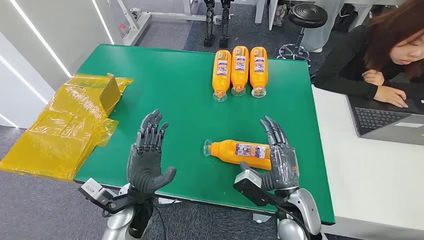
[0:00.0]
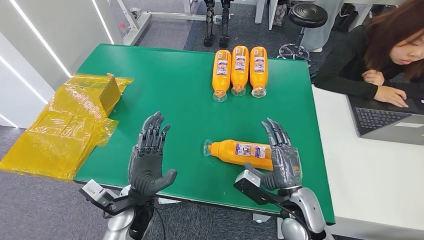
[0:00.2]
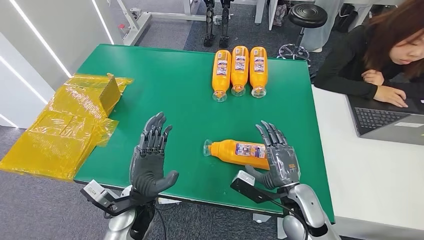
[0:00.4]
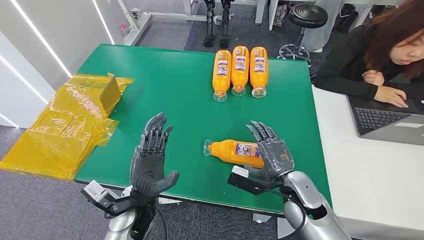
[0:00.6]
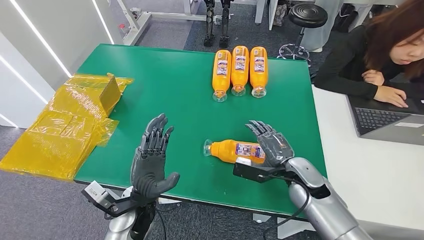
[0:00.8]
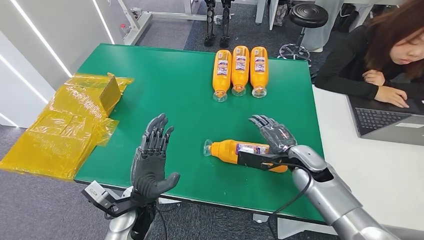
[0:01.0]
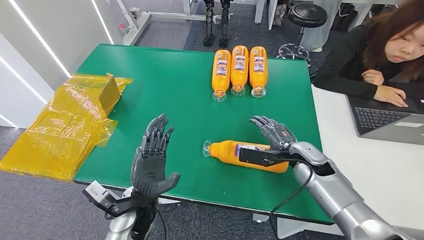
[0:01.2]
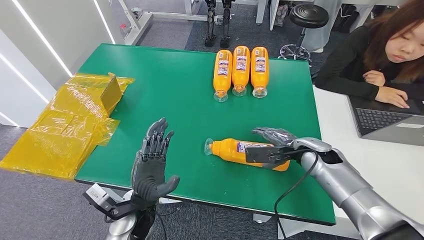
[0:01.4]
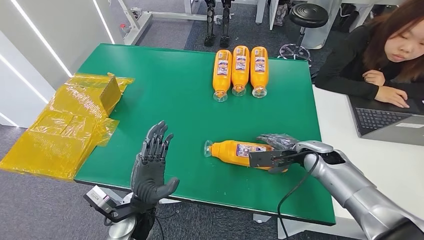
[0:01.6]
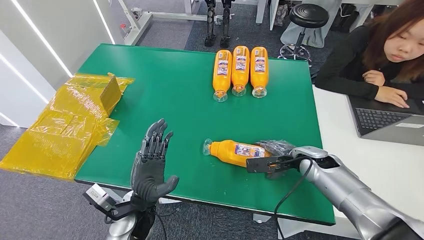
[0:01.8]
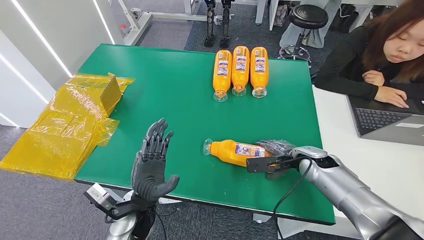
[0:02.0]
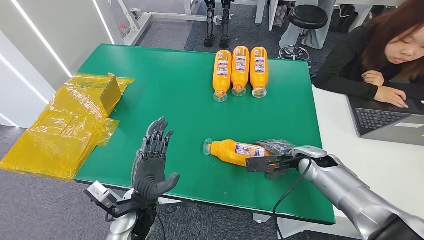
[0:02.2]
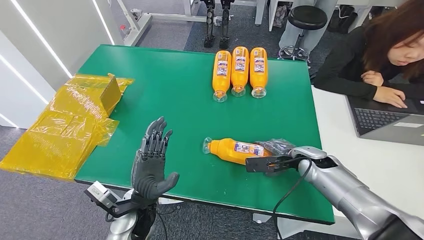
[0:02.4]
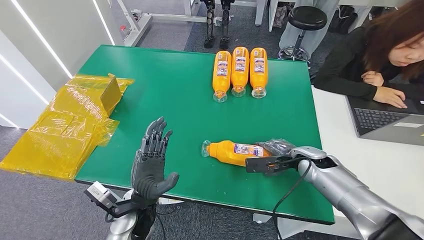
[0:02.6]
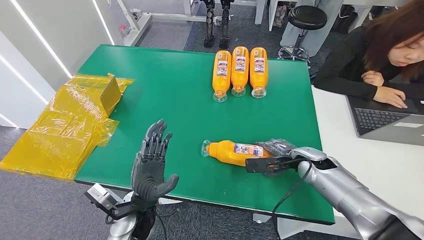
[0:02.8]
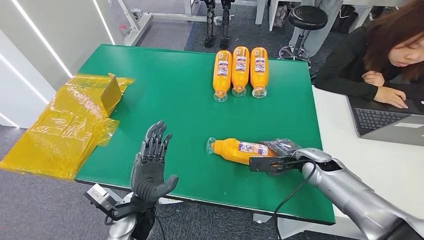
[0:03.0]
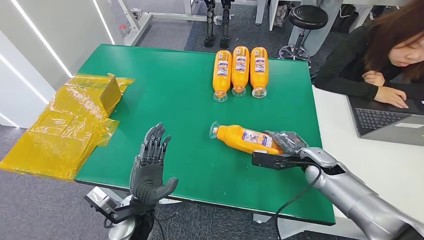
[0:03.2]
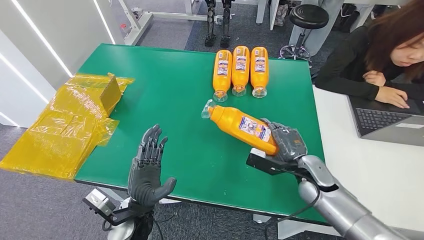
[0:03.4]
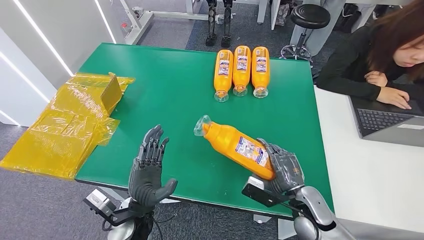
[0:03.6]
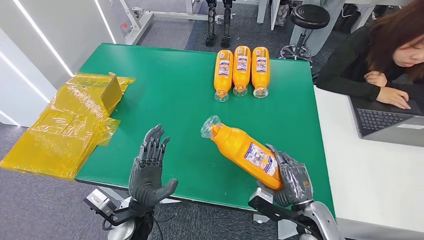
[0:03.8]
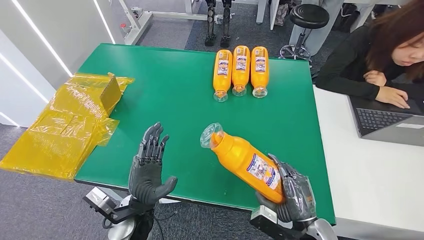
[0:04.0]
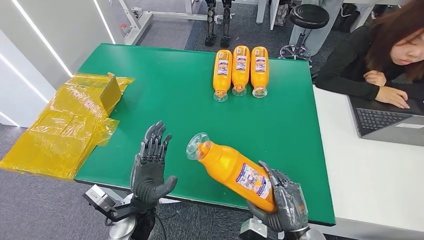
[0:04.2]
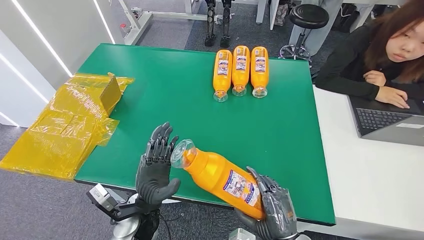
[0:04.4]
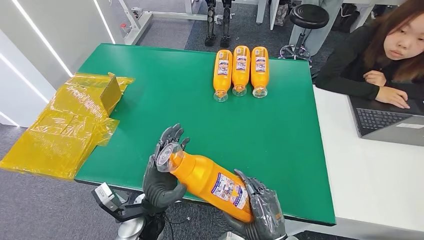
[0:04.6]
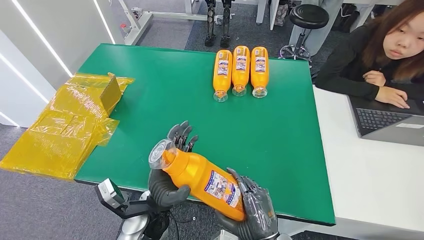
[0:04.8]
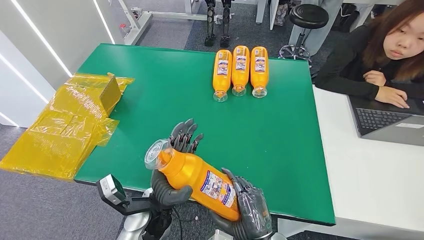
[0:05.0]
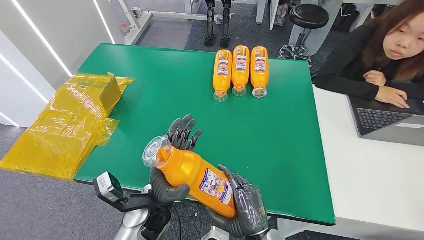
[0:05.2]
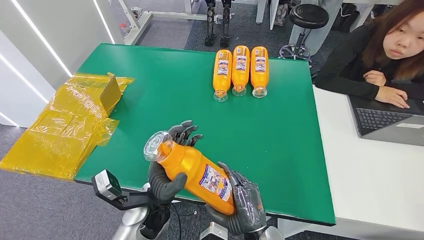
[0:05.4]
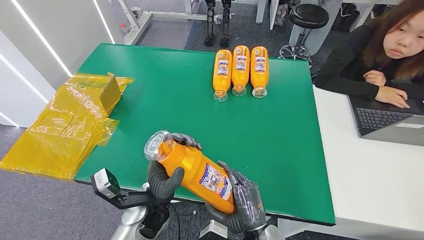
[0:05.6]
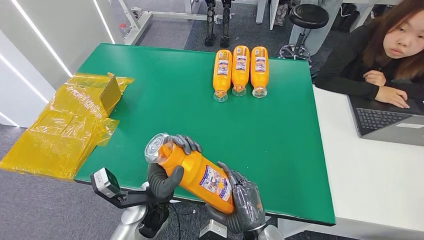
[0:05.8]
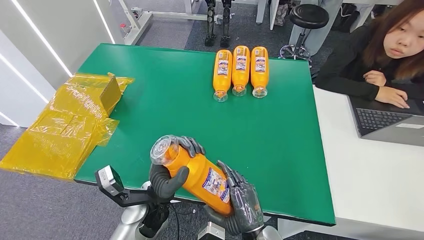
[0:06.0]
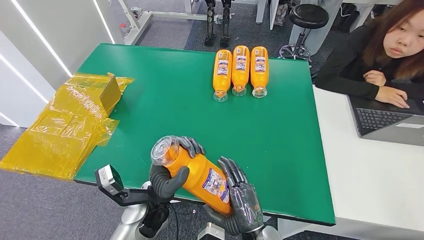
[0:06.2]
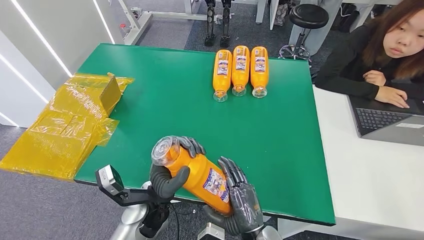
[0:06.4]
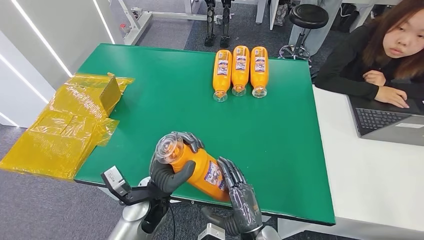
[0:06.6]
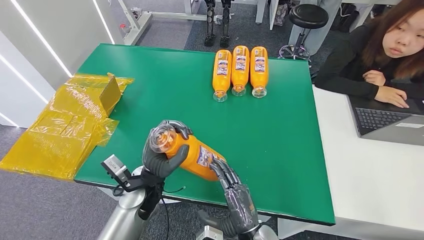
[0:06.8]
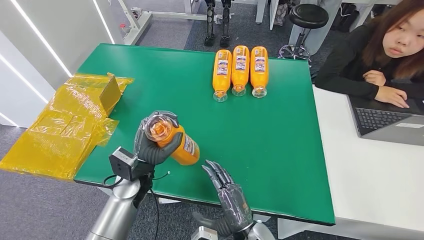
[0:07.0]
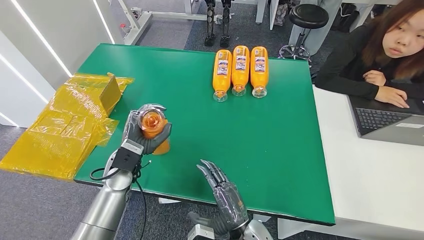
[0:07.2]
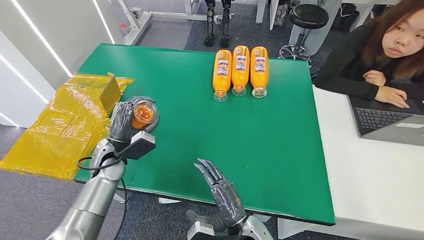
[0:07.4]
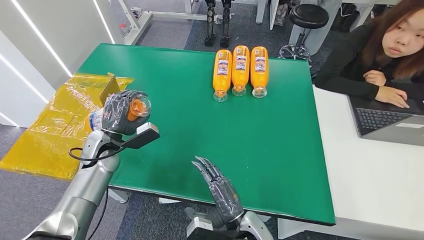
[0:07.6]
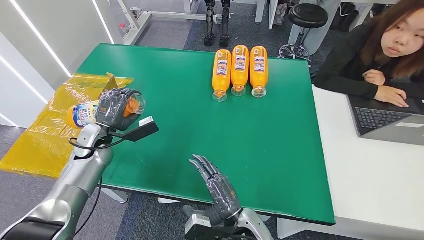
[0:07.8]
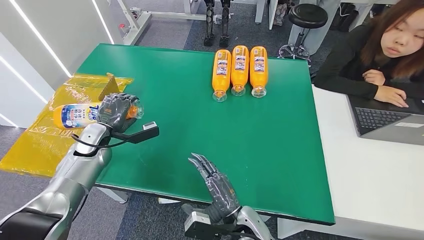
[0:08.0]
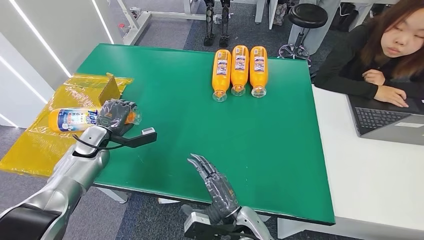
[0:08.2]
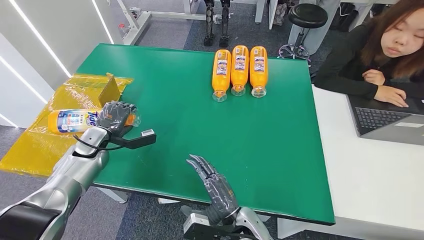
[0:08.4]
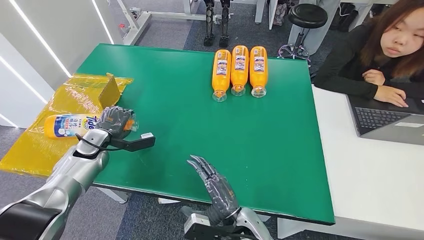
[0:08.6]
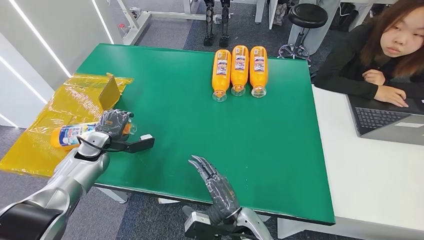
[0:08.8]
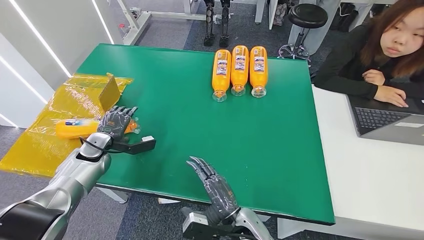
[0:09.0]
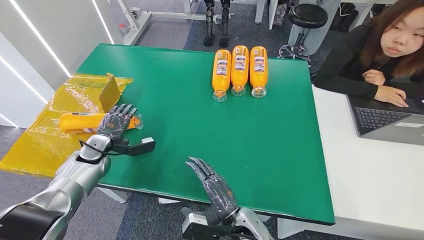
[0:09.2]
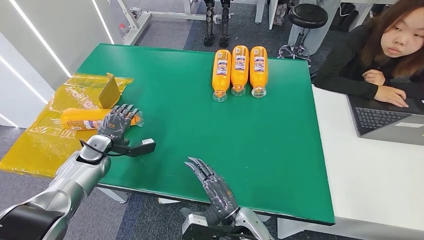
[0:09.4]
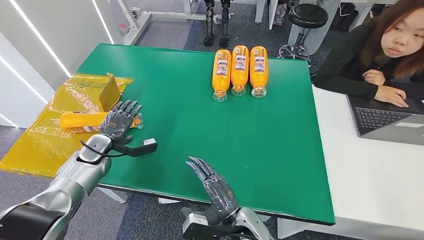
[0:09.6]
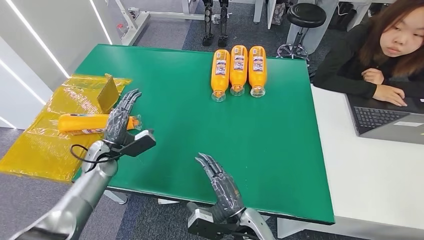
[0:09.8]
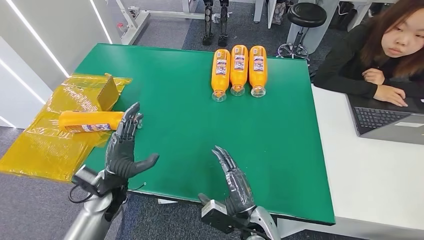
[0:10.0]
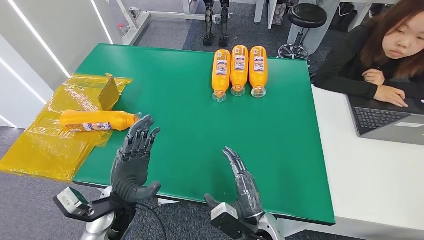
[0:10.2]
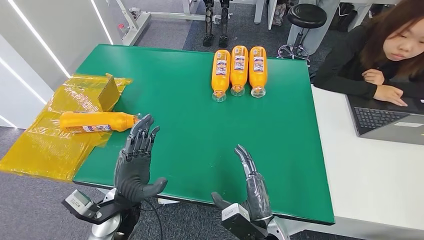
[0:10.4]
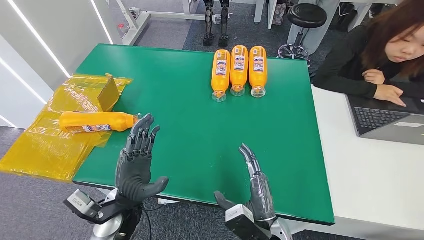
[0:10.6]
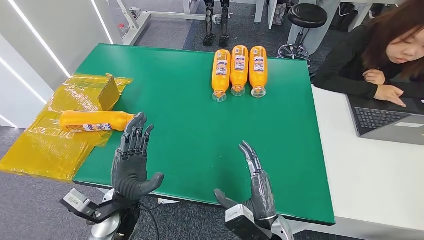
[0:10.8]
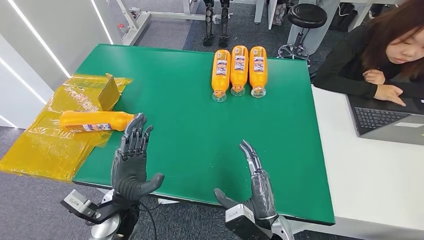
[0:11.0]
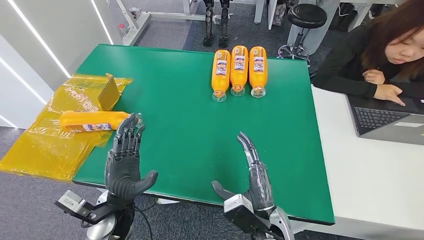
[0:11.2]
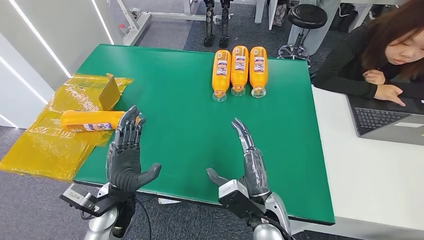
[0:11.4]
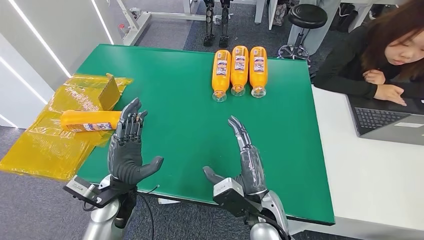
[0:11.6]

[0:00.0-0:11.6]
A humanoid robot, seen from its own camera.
Step, 0:00.0 to 0:03.2: Pick up the bottle from the table.
Step, 0:03.4 to 0:11.6: Turn the bottle to the front side.
0:01.4 to 0:02.8: The hands make only small movements.
0:04.4 to 0:05.8: The right hand heads to the left, covering approximately 10 cm.
0:05.8 to 0:07.2: The left hand travels to the left and forward by some 15 cm.
0:07.2 to 0:08.8: The left hand shifts about 15 cm to the left.
0:08.8 to 0:10.2: The left hand goes about 25 cm to the right and backward.
0:10.2 to 0:11.6: The right hand goes approximately 5 cm upward.

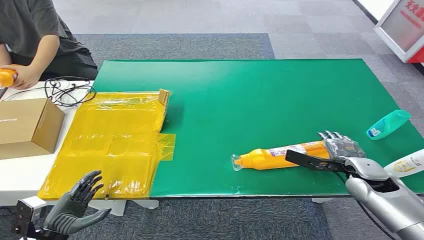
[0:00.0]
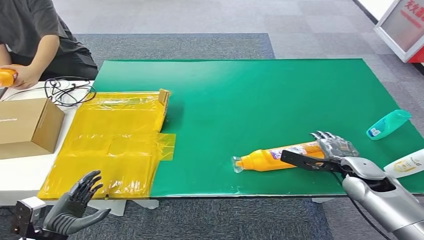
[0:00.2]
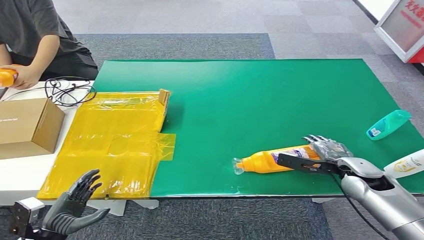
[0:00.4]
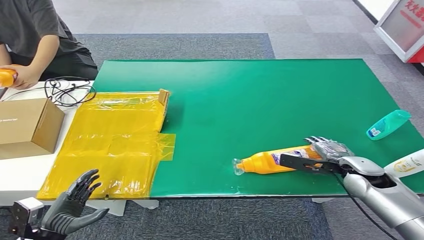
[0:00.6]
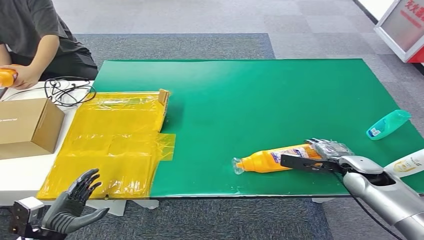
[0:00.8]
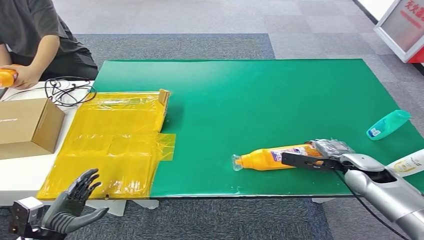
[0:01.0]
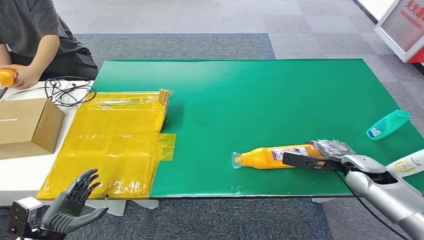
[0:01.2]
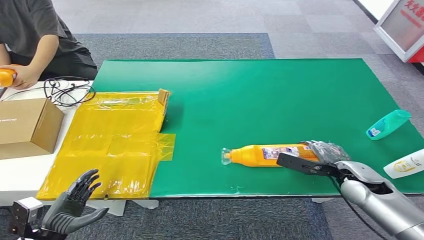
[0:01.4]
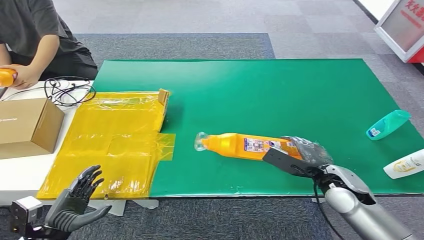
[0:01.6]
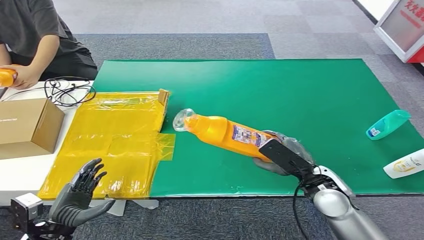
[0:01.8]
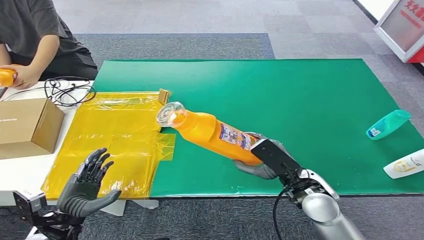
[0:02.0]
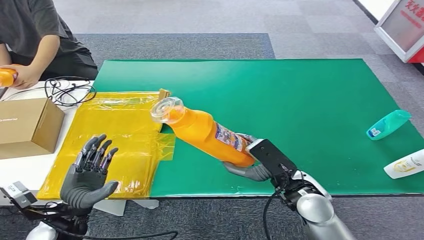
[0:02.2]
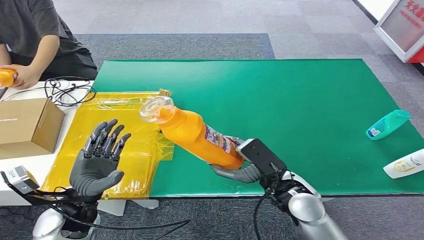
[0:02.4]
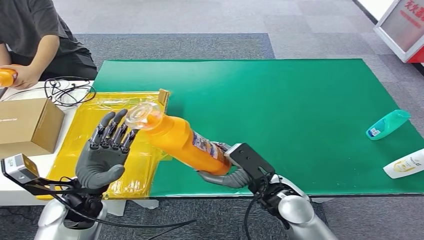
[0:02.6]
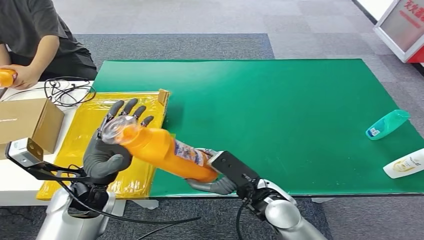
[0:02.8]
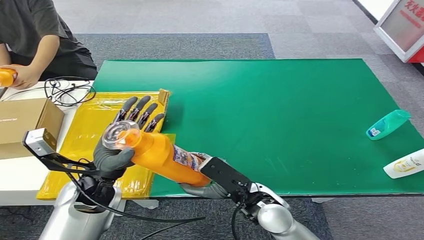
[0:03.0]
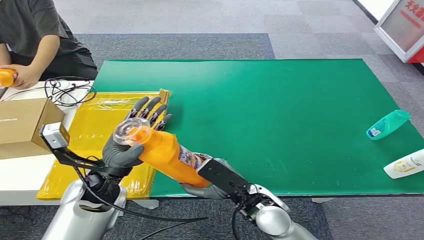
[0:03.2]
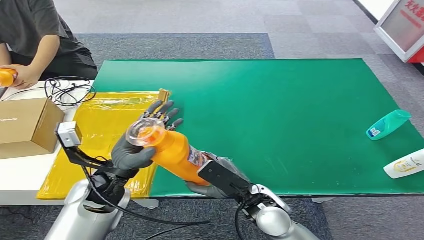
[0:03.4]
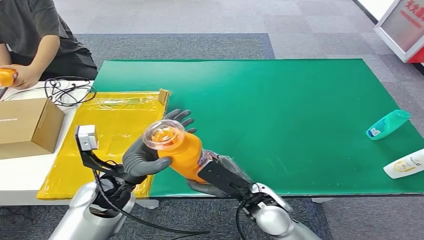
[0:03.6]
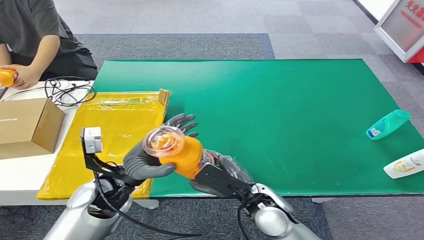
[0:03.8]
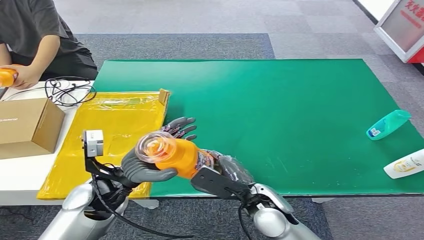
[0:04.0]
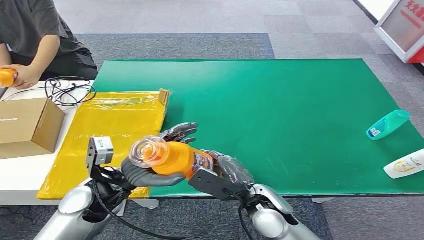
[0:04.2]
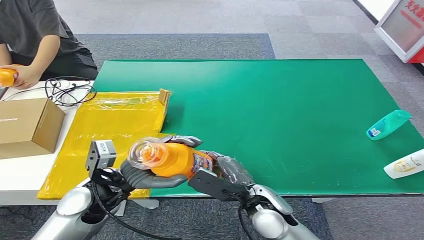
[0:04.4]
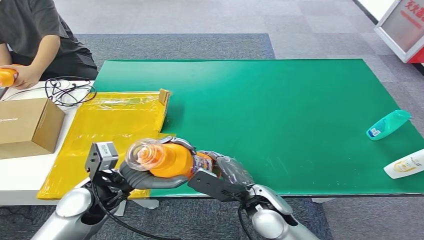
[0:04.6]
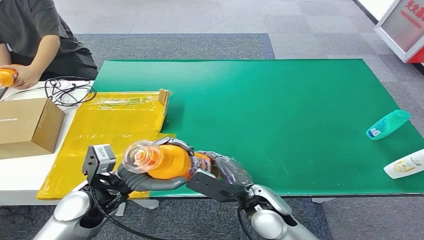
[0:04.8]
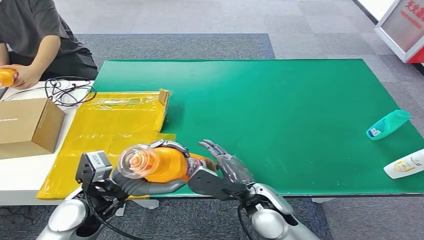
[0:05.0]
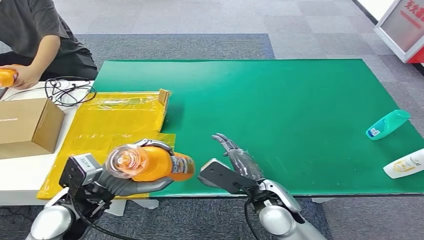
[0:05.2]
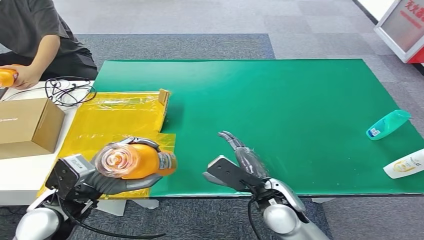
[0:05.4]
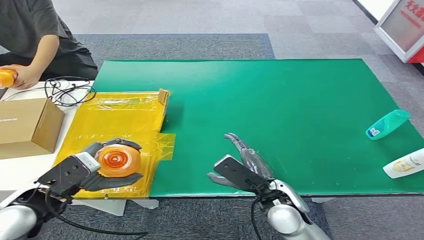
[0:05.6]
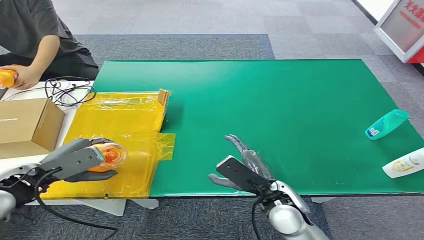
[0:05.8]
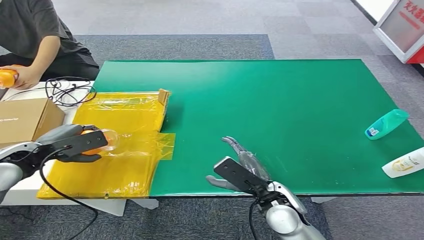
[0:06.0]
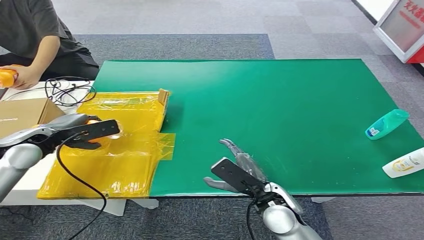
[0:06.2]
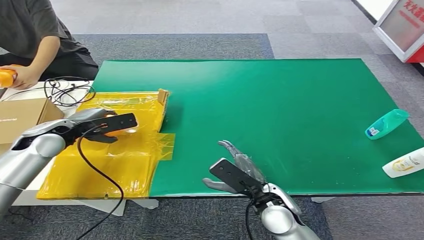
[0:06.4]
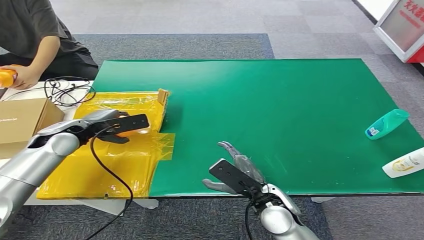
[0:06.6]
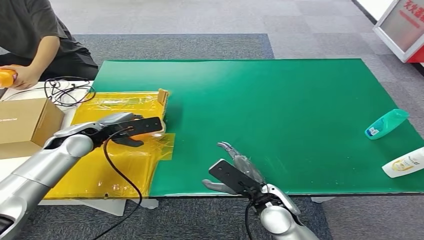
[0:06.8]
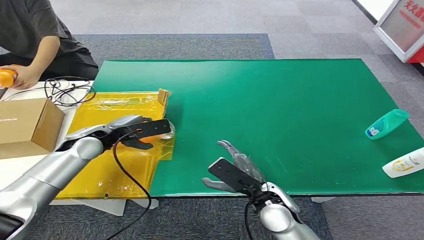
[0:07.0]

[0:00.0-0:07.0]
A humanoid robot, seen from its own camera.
Step, 0:00.0 to 0:02.6: Pick up the bottle from the table.
Step, 0:02.8 to 0:07.0: Turn the bottle to the front side.
0:04.2 to 0:05.6: The left hand is displaced to the left by approximately 10 cm.
0:05.6 to 0:07.0: The left hand heads forward, covering approximately 15 cm.
